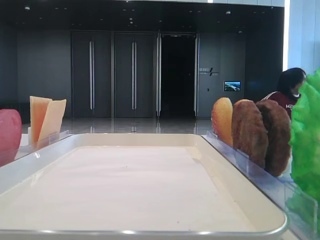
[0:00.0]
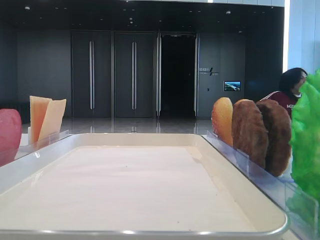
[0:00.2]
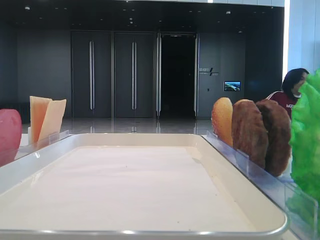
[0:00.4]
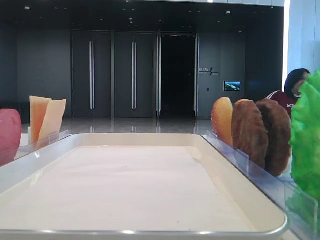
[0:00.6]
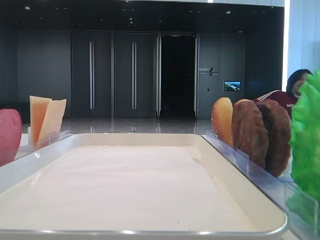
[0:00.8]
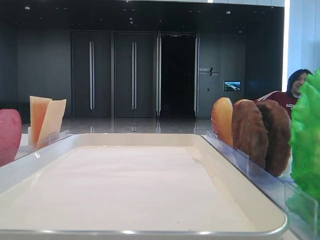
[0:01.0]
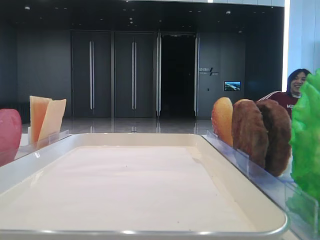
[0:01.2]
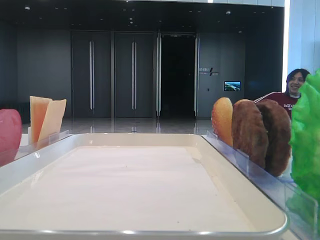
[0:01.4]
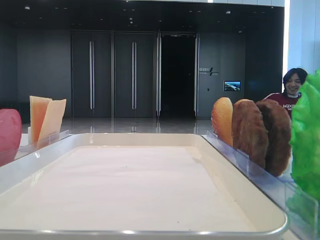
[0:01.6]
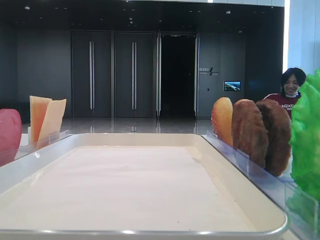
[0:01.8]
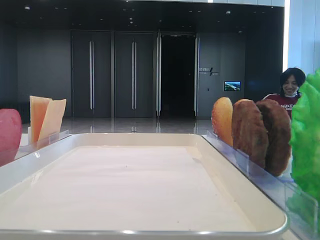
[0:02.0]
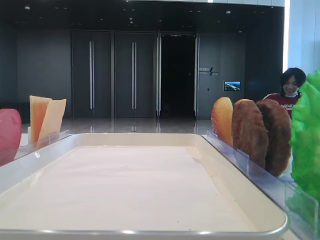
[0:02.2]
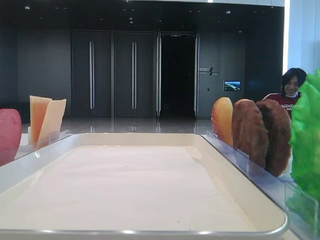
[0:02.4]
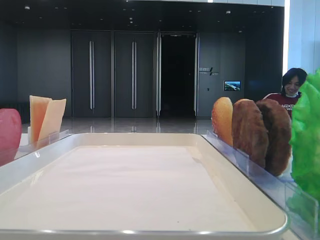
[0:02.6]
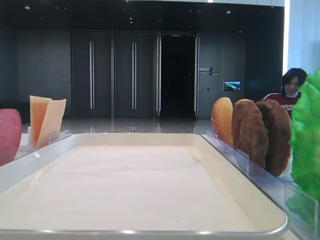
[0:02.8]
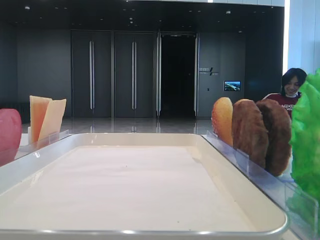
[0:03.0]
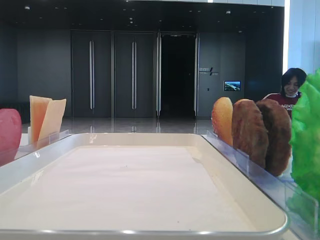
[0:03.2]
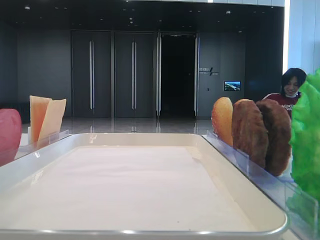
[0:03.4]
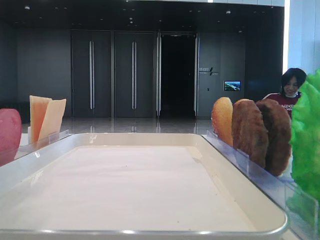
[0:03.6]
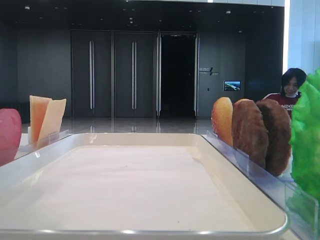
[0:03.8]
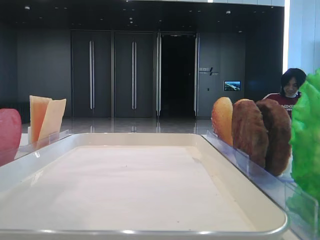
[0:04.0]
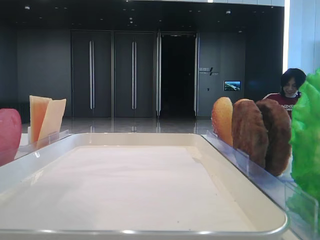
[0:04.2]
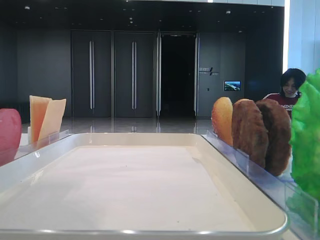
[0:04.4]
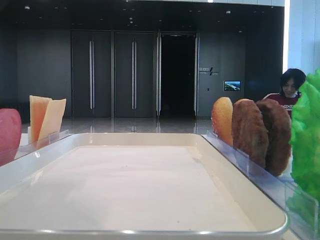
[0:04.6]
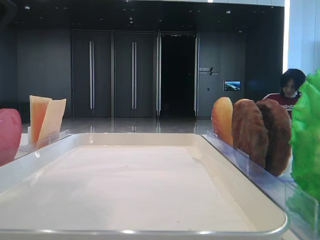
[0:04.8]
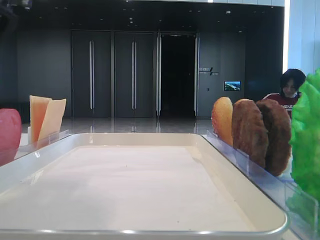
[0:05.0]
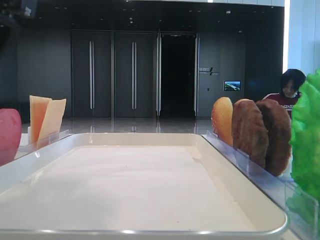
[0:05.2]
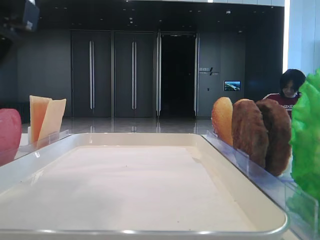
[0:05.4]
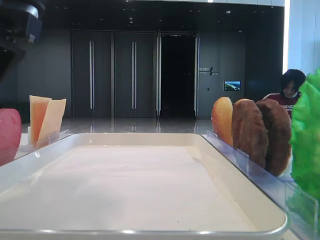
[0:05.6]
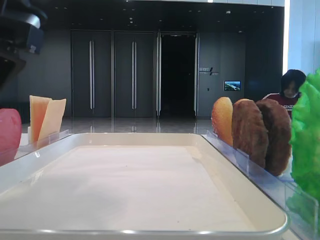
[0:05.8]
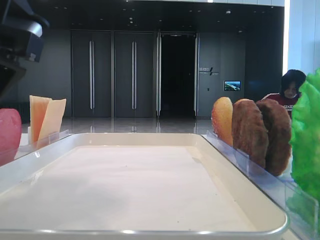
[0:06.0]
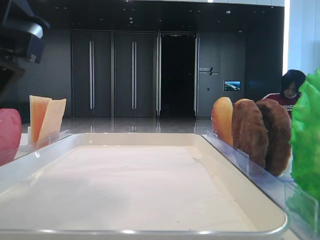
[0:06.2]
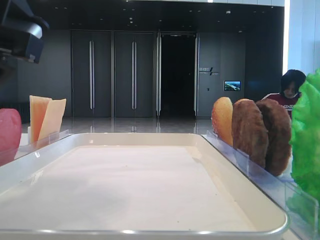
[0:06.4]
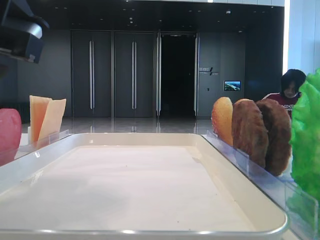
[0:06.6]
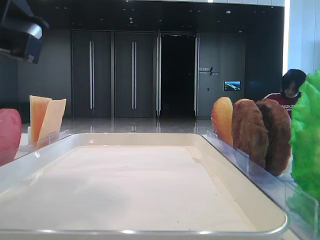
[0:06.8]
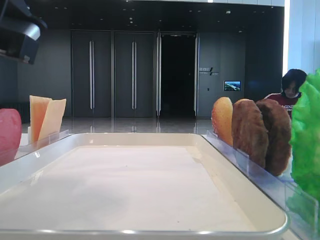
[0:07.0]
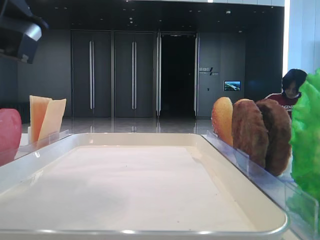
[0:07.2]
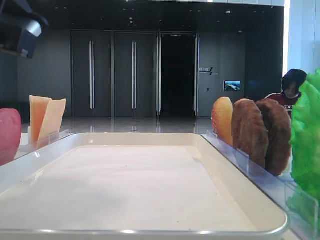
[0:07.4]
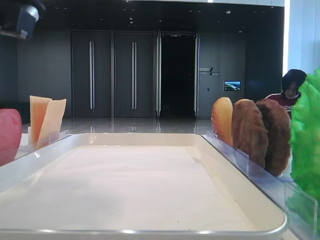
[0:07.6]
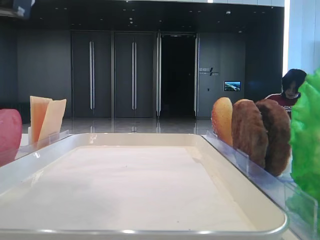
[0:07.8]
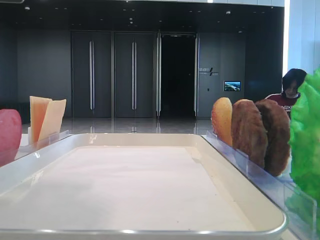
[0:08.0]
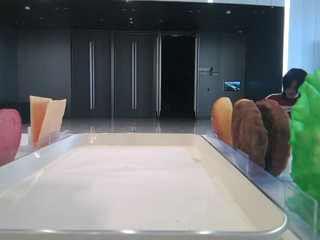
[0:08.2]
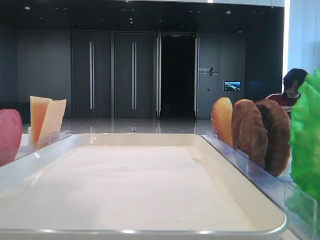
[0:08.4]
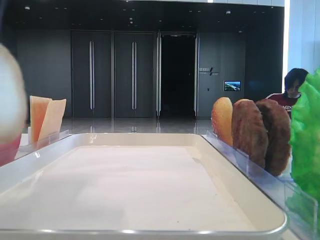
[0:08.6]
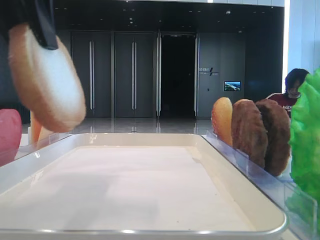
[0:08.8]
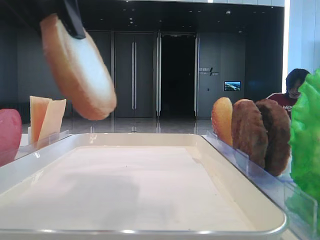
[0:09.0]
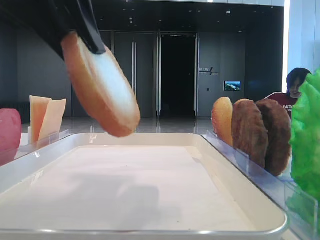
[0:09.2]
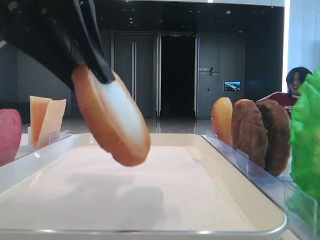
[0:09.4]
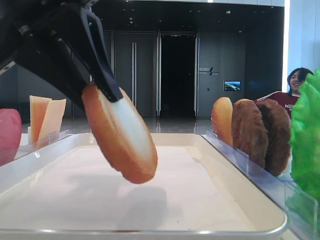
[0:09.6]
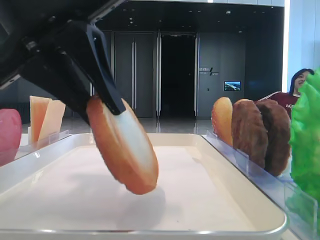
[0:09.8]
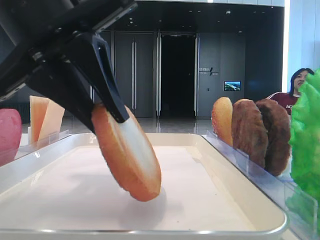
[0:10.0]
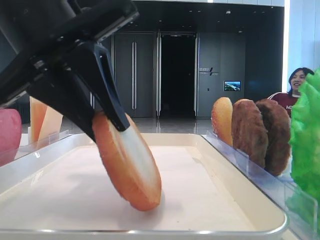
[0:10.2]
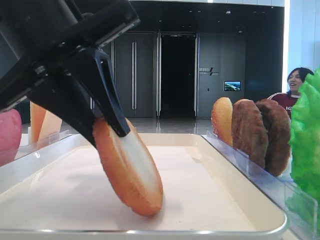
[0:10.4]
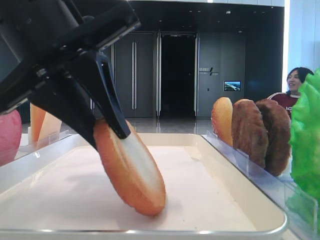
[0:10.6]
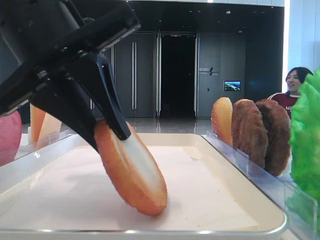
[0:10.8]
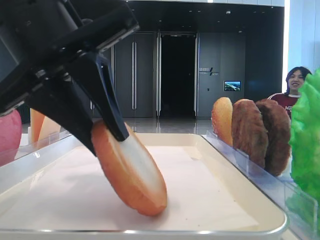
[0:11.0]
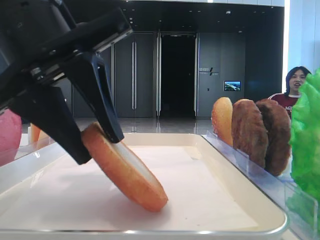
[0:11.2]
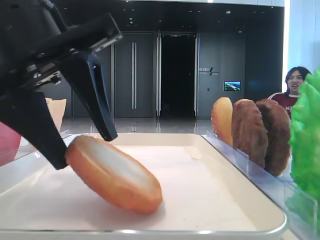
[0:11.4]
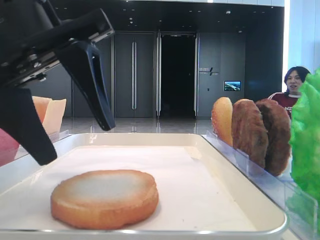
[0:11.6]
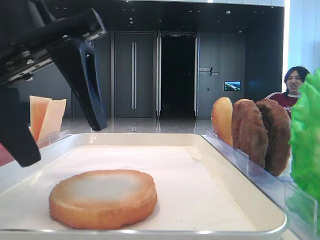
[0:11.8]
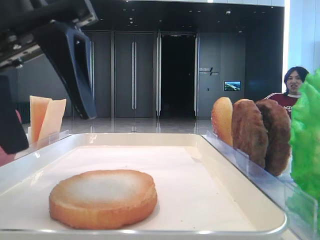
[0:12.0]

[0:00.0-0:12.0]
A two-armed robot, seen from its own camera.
Step, 0:05.6 to 0:11.4: Place the bread on the tray with the left hand.
0:03.0 to 0:04.4: The left gripper goes roughly 15 cm to the right and downward.
0:04.4 to 0:06.0: The left gripper heads downward, covering some 5 cm.
0:06.0 to 0:07.6: The left gripper closes its fingers.
0:07.6 to 0:09.0: The left gripper is displaced upward by some 5 cm.
0:09.0 to 0:10.4: The left gripper moves downward, about 10 cm.
0:10.4 to 0:12.0: The left gripper opens its fingers.

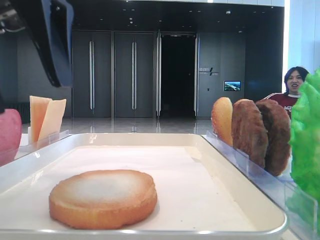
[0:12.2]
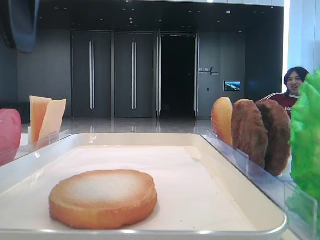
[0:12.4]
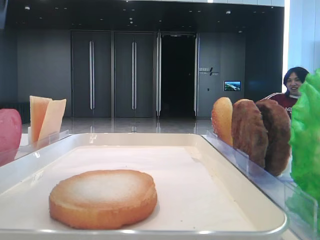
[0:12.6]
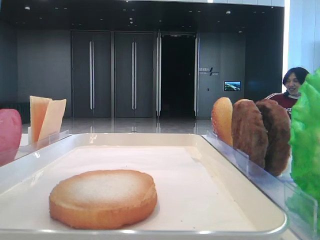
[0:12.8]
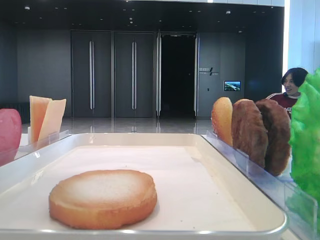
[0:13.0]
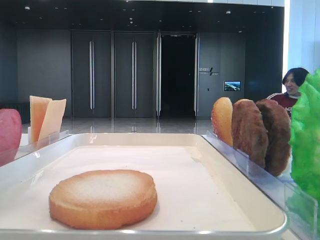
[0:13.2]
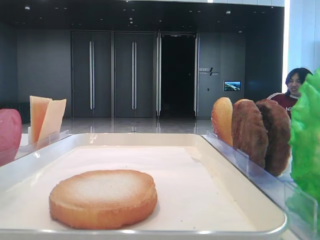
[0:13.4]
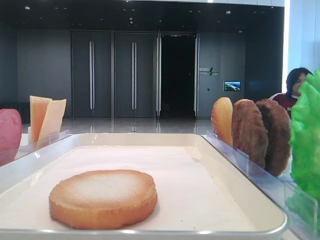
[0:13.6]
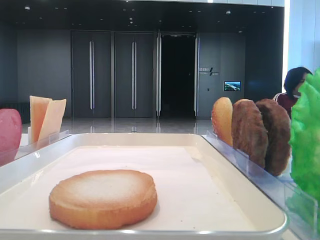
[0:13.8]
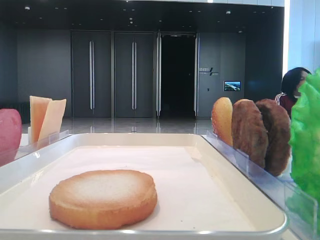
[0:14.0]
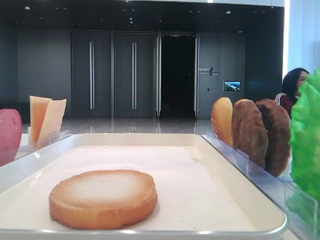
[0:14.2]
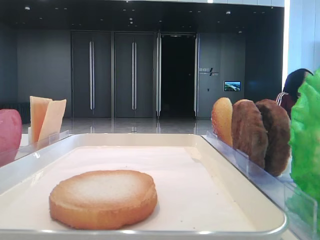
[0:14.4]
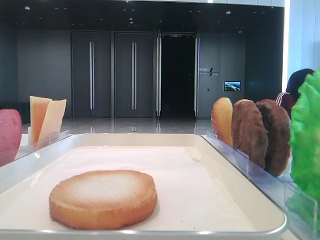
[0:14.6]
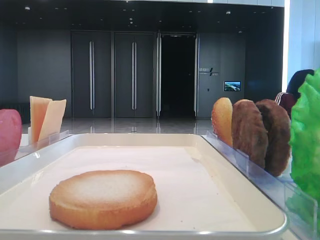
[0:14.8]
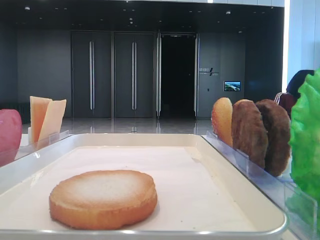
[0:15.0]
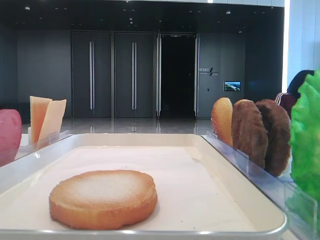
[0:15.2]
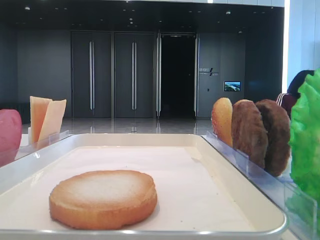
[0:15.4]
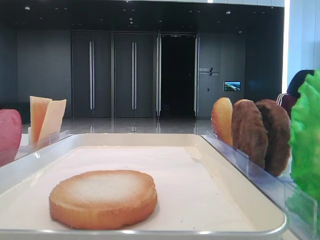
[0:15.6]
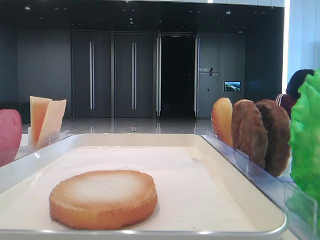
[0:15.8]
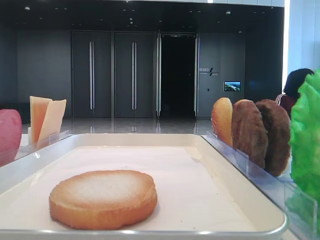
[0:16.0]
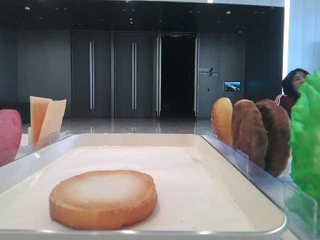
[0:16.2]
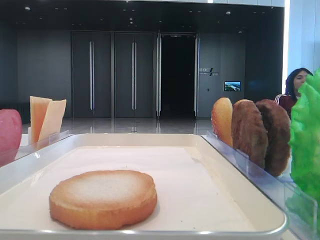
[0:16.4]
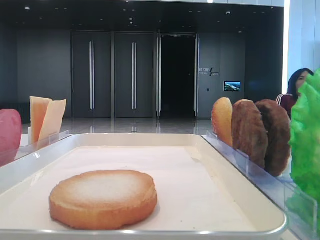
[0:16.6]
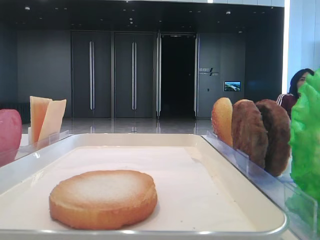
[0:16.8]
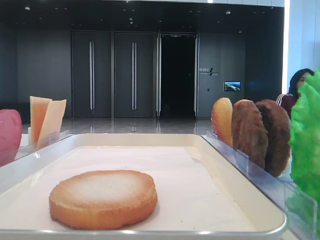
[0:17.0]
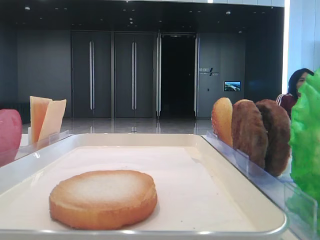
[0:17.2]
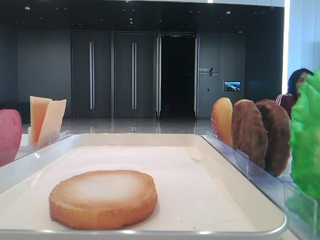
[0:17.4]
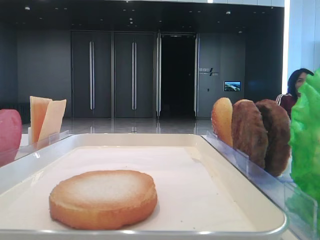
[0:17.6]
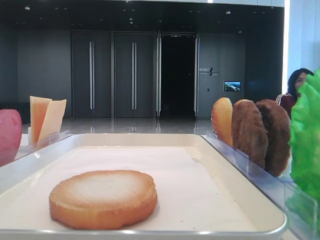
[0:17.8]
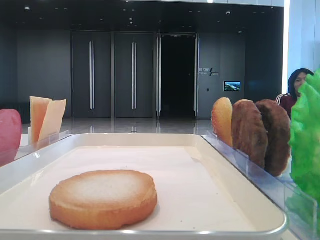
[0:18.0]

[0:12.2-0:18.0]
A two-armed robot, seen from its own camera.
0:12.2 to 0:13.6: The left gripper is displaced to the left and upward by approximately 20 cm.
